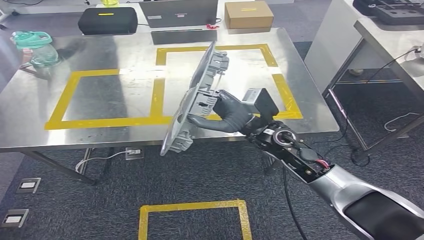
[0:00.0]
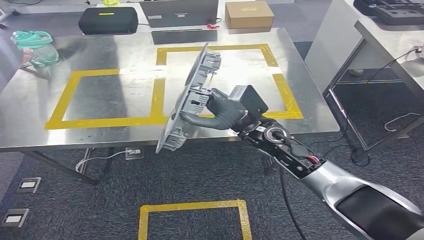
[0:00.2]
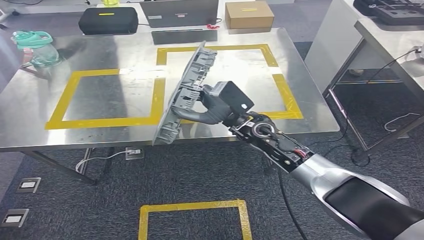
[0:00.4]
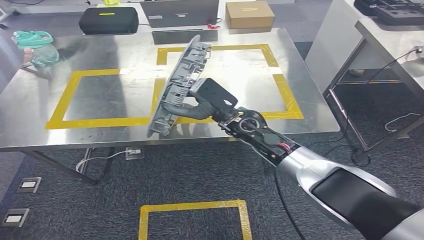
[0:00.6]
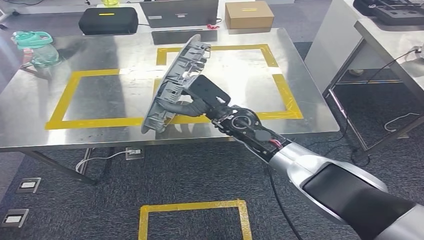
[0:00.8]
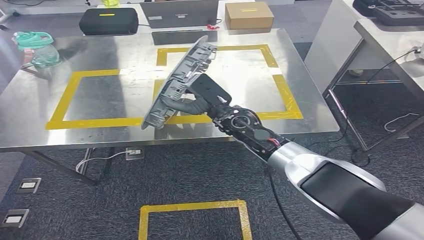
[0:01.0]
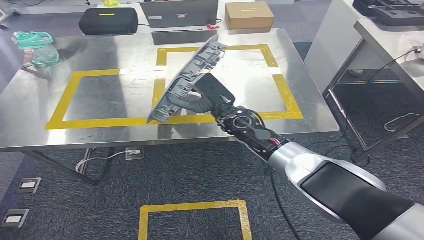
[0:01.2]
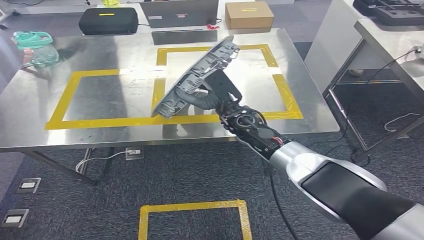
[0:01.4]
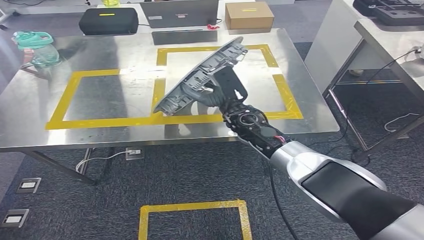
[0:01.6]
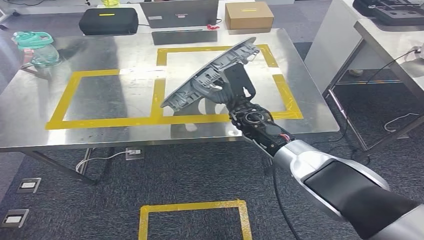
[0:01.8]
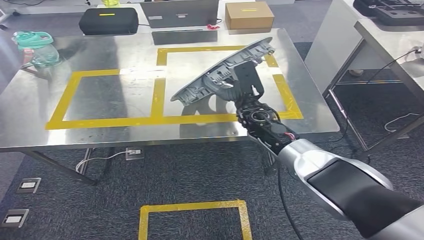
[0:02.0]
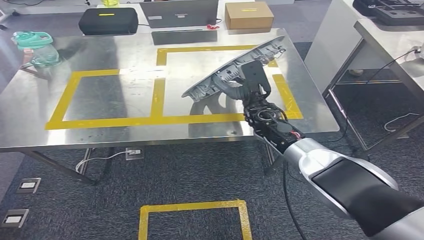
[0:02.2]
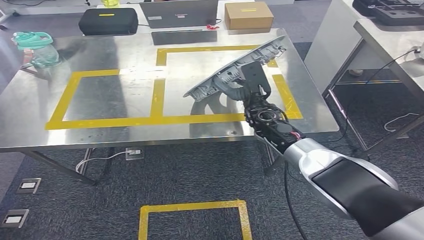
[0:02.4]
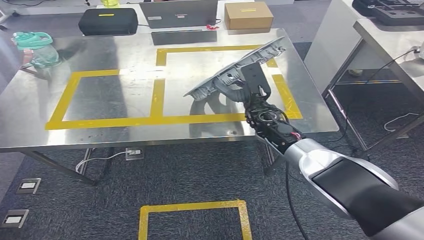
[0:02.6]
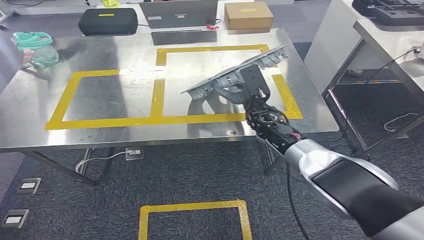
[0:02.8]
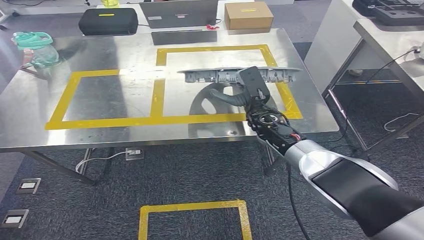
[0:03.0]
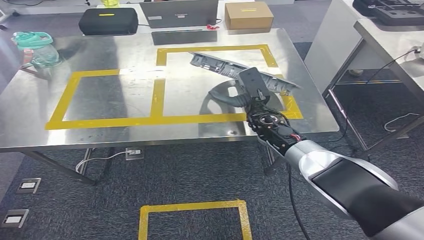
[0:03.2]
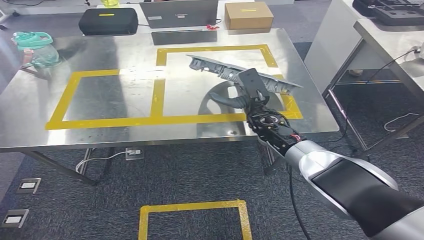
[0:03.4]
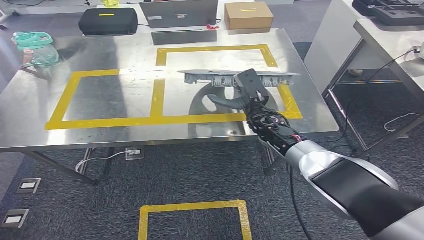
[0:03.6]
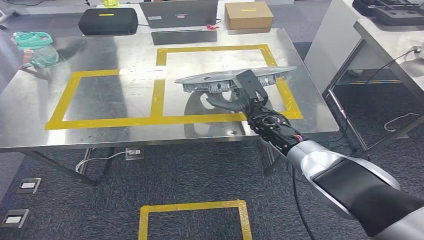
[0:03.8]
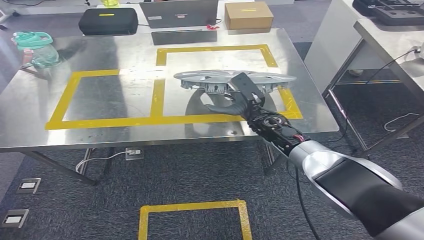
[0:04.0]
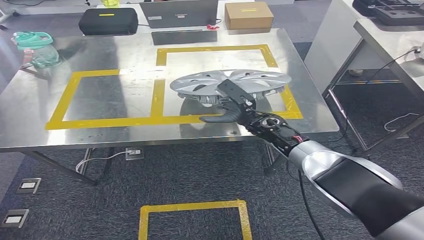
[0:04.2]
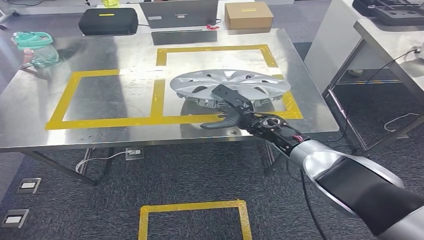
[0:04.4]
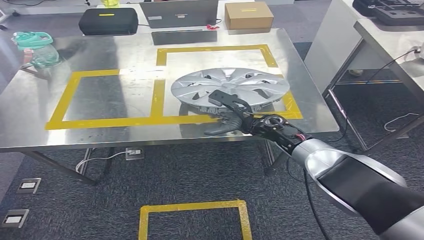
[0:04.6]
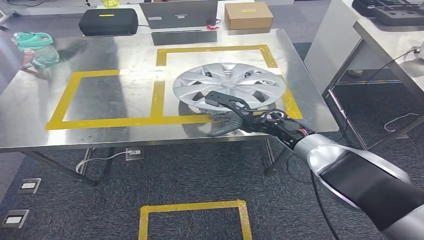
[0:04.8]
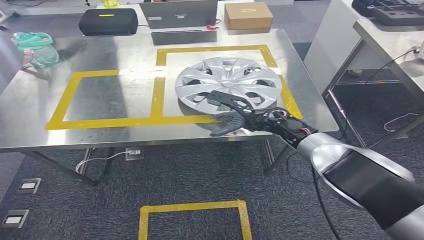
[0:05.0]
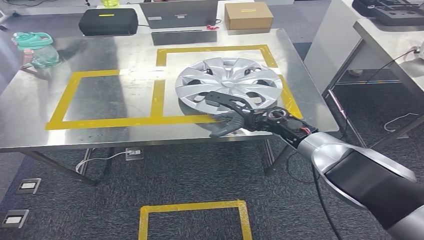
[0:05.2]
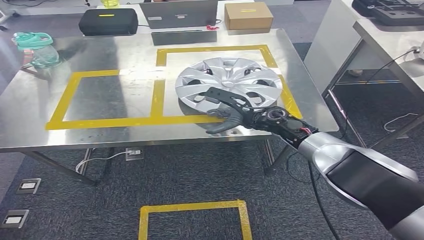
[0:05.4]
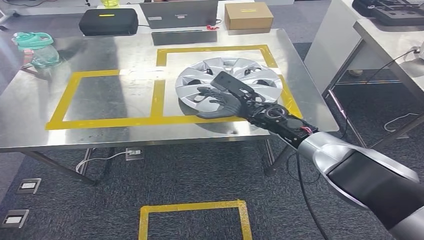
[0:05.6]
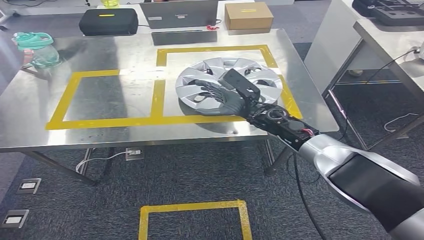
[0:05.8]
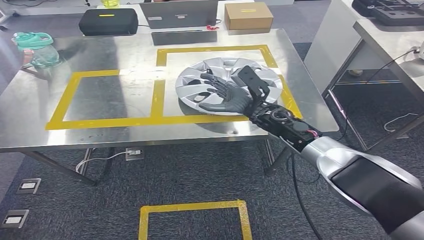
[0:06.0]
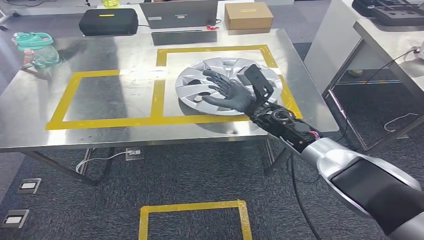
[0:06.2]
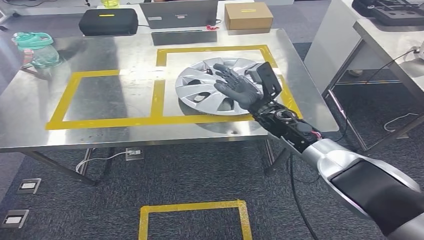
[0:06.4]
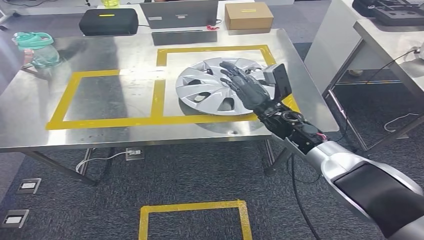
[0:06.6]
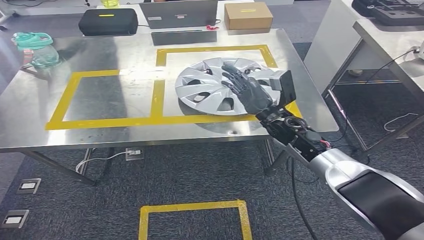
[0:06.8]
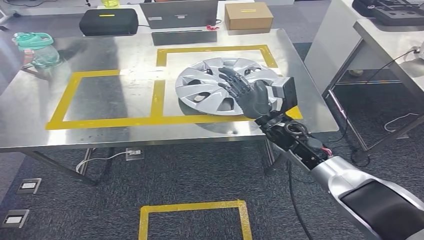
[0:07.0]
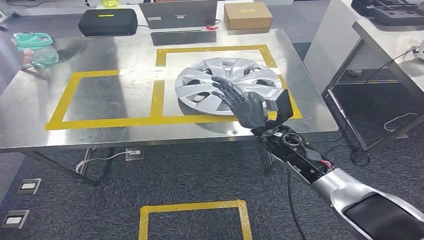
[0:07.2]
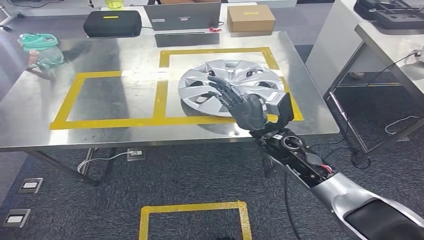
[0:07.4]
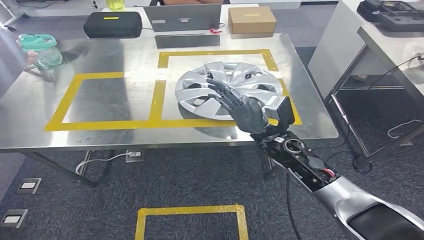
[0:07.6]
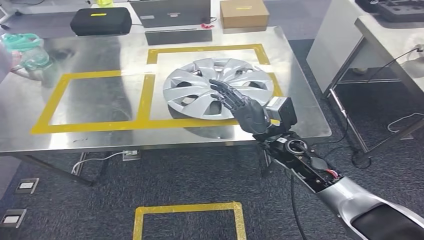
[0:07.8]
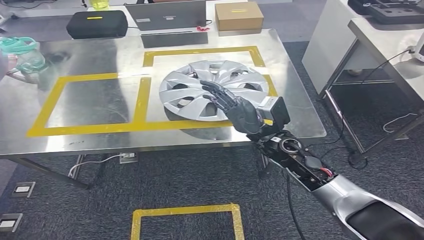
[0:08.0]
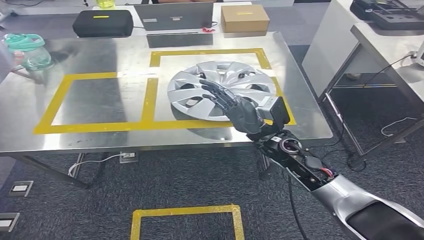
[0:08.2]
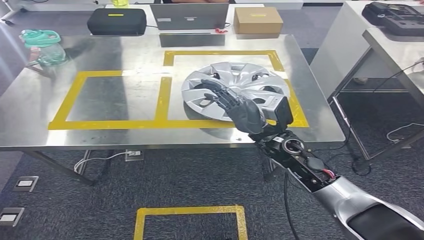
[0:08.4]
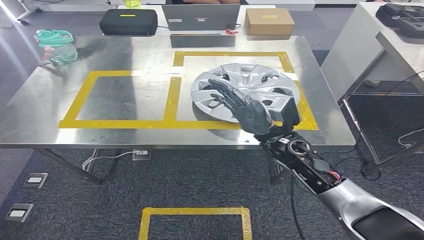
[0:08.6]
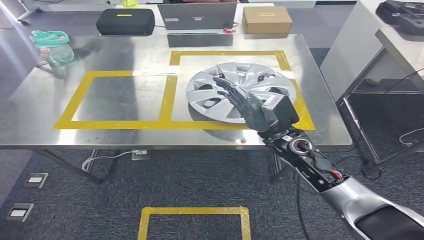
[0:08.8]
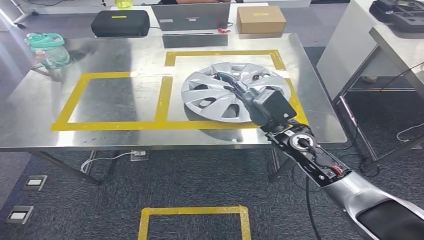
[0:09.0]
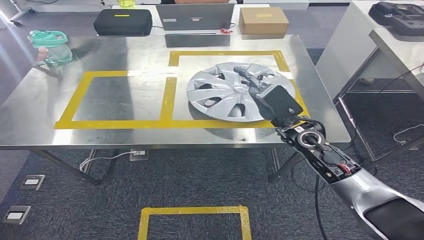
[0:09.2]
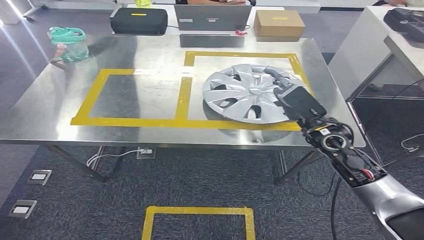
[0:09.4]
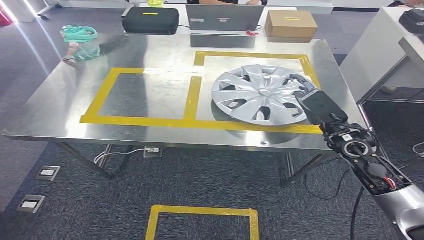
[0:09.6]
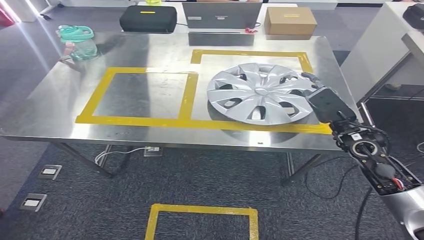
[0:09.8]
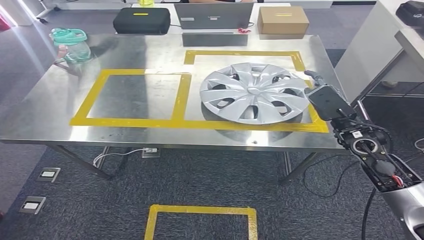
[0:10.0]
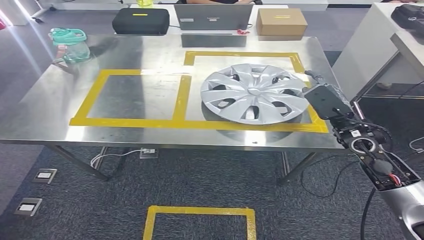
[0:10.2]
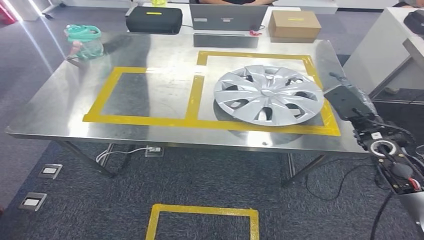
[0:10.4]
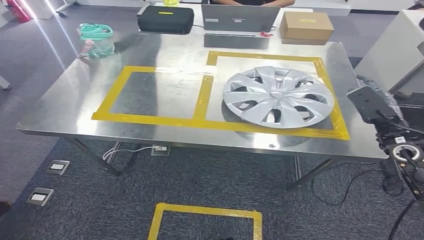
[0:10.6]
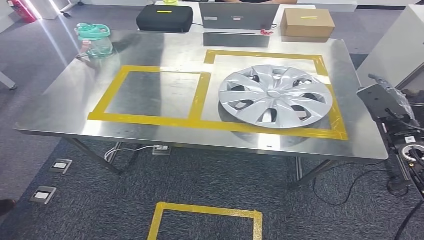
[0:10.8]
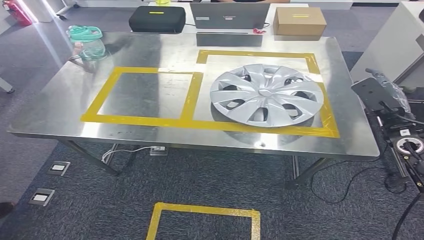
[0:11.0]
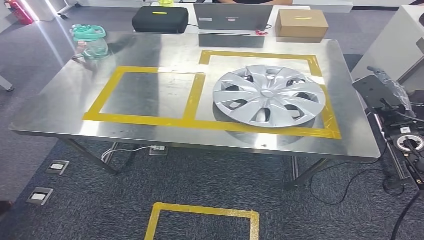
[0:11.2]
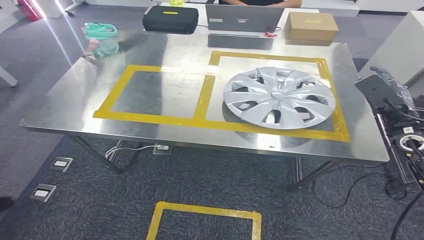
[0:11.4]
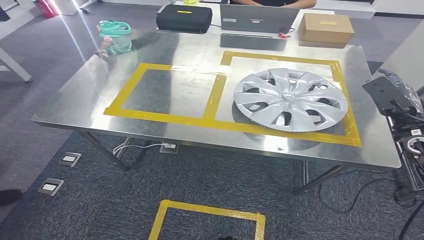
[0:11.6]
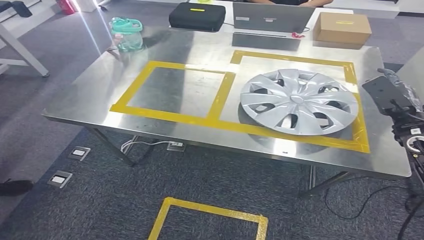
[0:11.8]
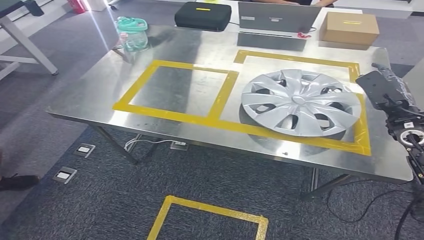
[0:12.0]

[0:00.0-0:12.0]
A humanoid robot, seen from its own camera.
Step, 0:00.0 to 0:07.0: Insert the small component into the corresponding slot on the workbench.
0:00.0 to 0:01.6: The right hand goes approximately 5 cm forward.
0:01.6 to 0:03.0: The right hand shifts approximately 5 cm to the right.

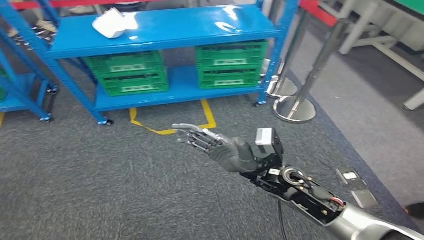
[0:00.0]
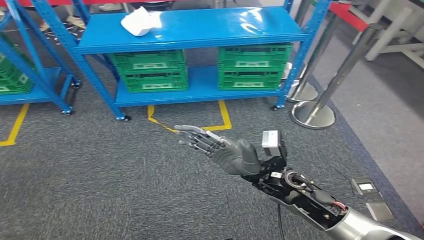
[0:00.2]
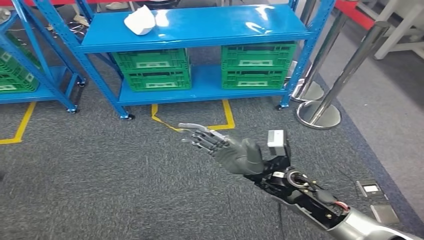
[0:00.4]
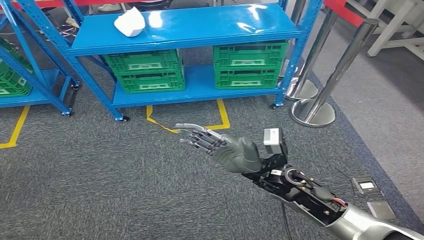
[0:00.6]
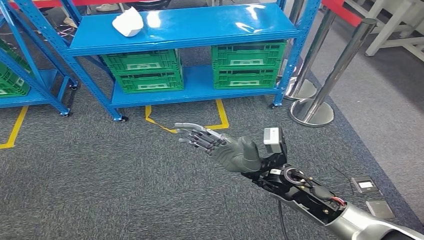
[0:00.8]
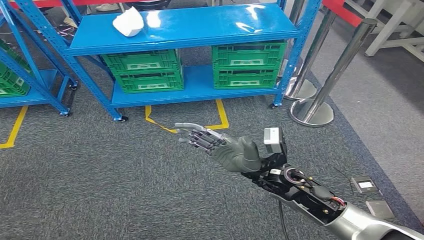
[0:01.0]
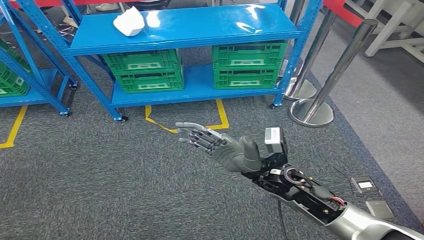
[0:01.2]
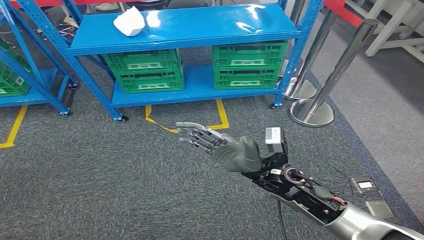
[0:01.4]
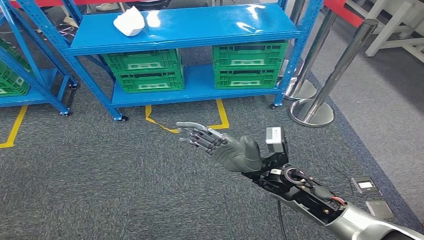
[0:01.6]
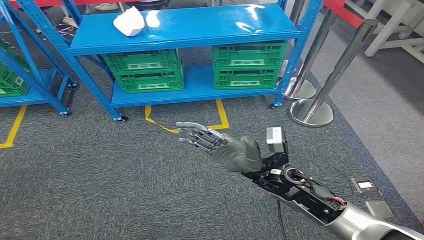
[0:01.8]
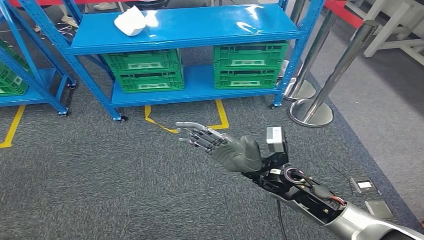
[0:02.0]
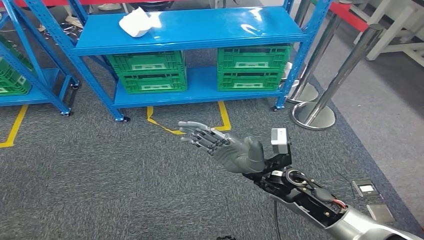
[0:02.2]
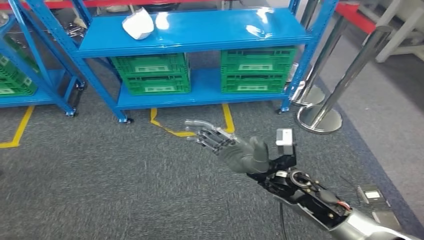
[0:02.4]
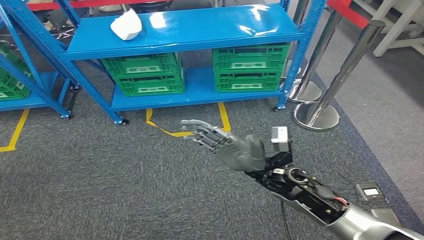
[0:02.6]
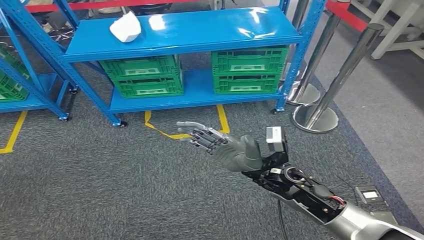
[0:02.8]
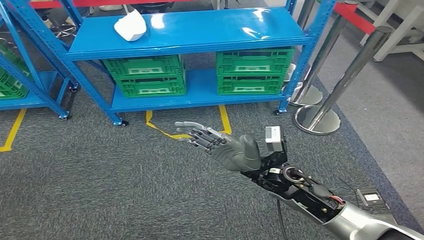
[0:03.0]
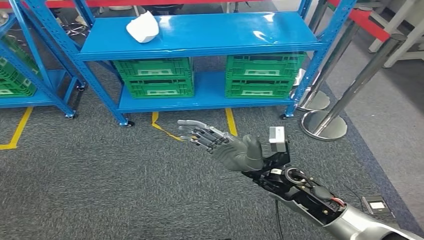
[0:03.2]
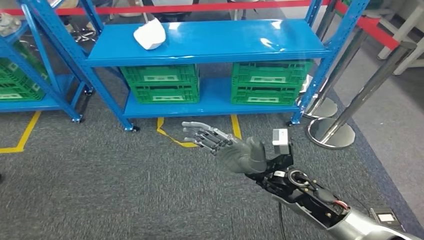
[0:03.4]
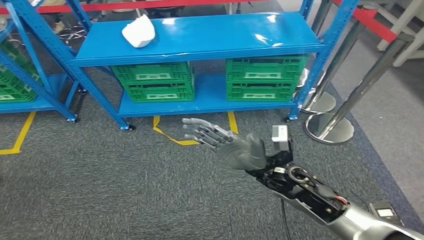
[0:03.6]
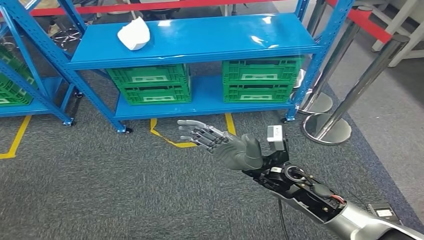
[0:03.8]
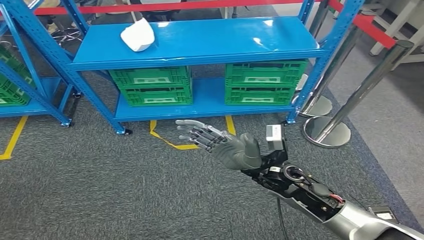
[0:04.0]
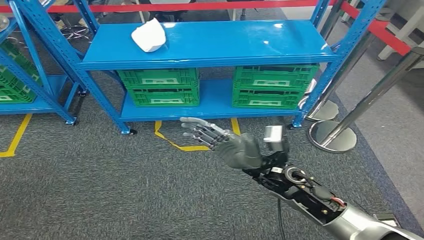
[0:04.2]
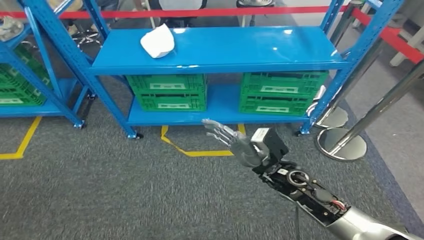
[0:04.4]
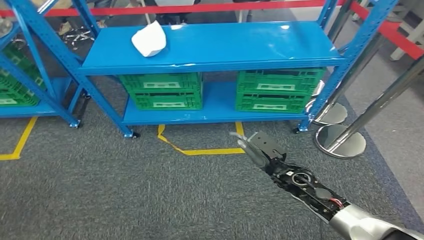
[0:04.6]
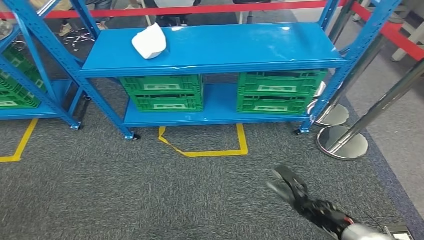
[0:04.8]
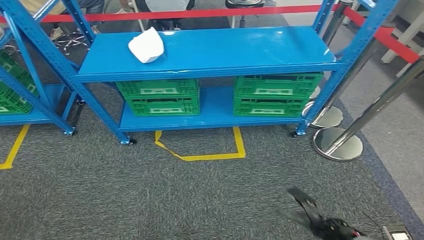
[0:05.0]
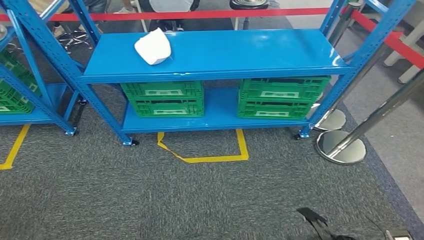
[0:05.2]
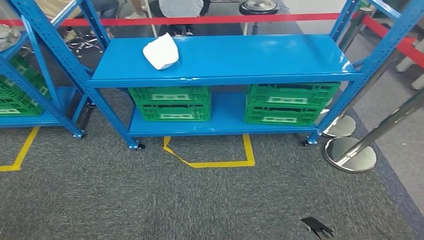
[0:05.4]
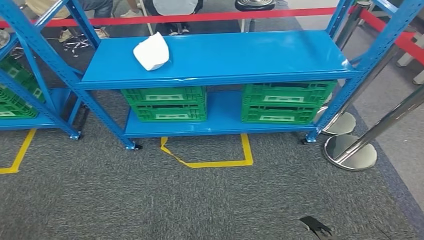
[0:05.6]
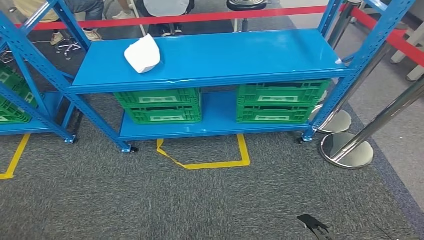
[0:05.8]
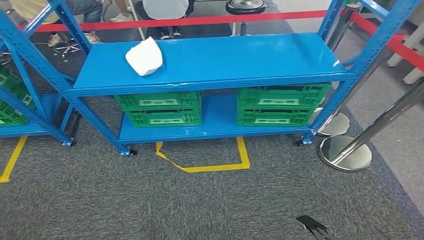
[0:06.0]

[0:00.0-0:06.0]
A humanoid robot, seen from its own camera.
0:01.6 to 0:03.0: Neither hand changes place.
